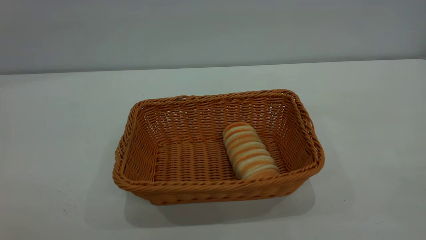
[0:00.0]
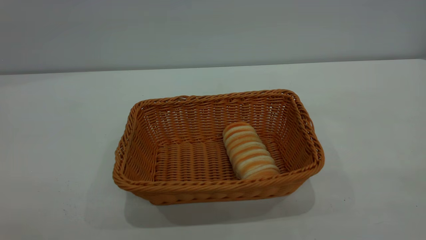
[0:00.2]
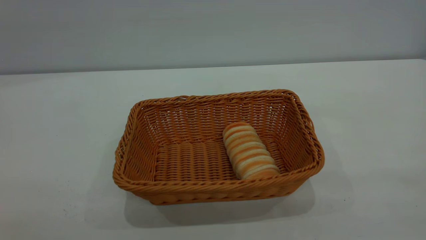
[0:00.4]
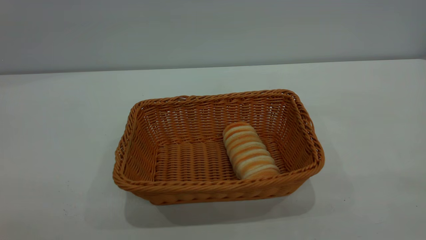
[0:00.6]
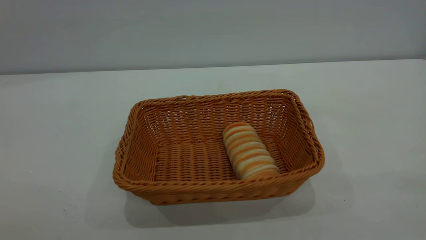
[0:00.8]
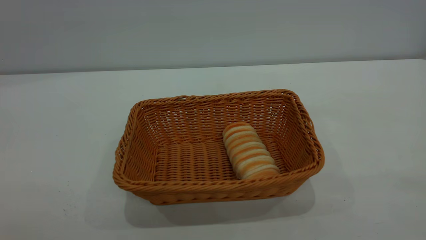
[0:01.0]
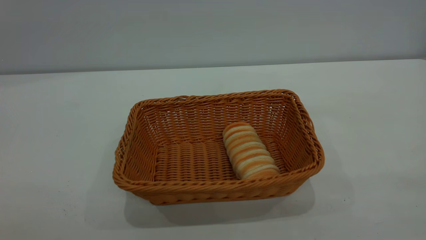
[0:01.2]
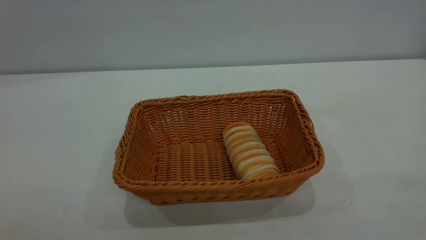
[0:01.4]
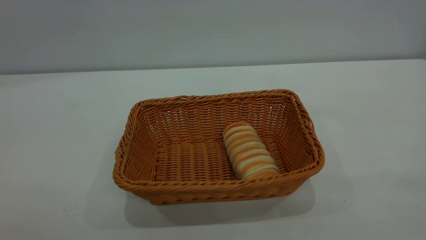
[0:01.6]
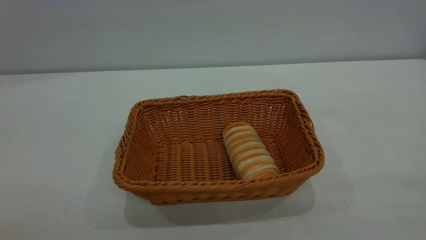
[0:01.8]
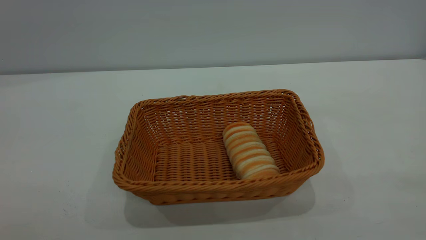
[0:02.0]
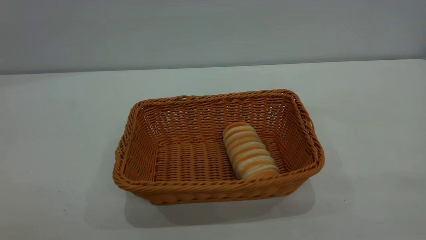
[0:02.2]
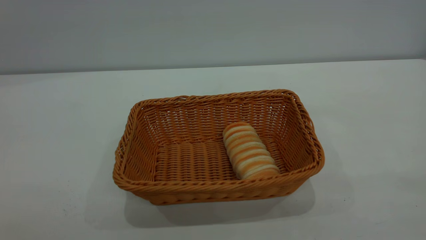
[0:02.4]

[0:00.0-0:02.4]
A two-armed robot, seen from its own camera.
Task of the whole recording: One hand grasps the yellow basket and places it in the middle of the table, while the other hand picks up the long bread and puts it into the yellow basket.
0:01.2 to 0:02.4: Both grippers stay put.
